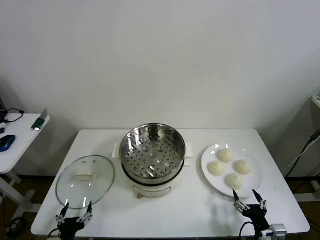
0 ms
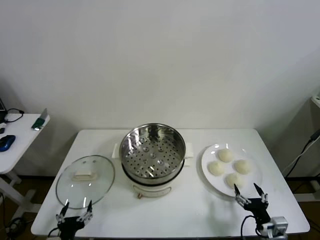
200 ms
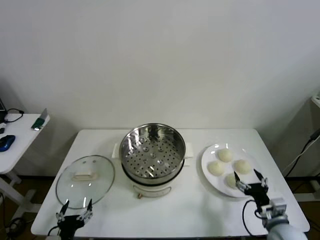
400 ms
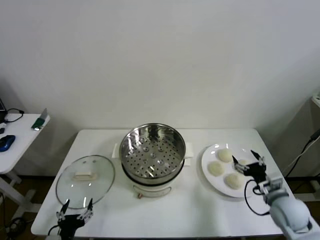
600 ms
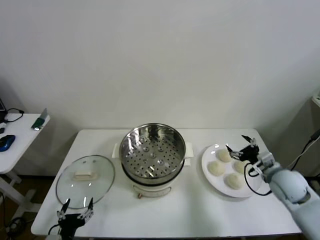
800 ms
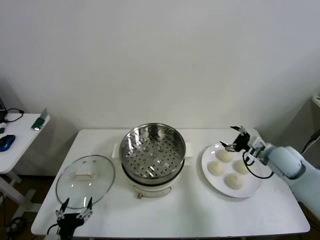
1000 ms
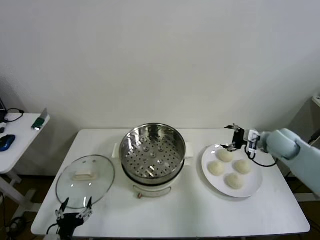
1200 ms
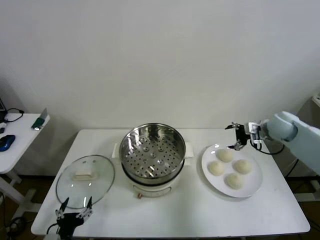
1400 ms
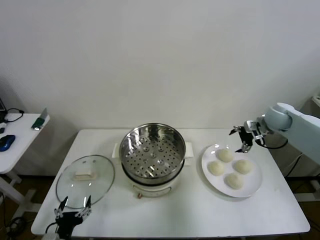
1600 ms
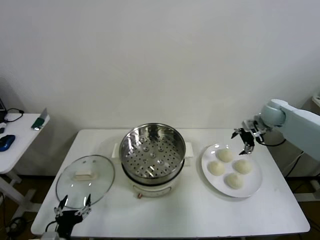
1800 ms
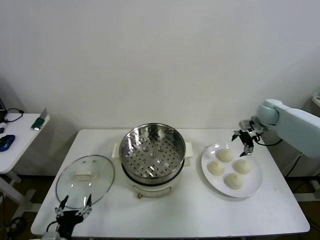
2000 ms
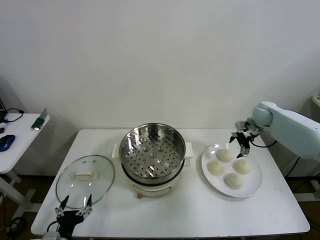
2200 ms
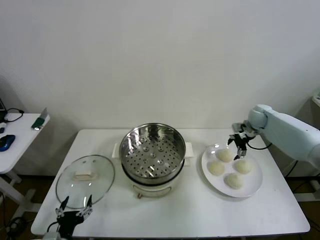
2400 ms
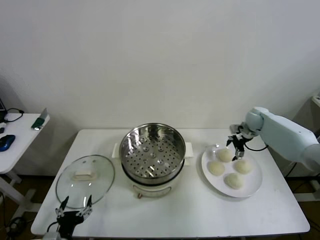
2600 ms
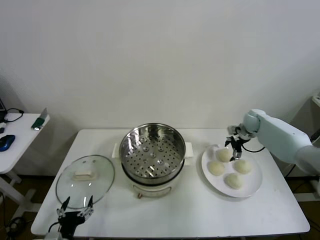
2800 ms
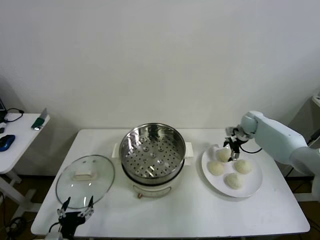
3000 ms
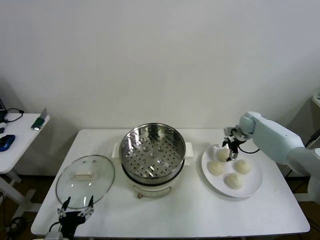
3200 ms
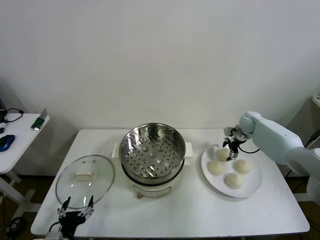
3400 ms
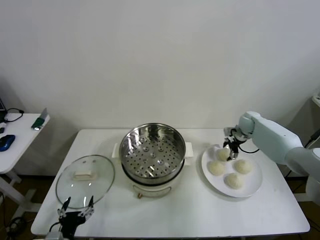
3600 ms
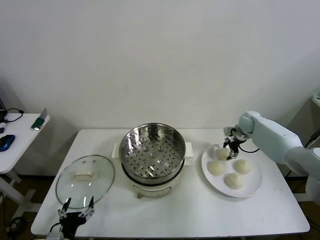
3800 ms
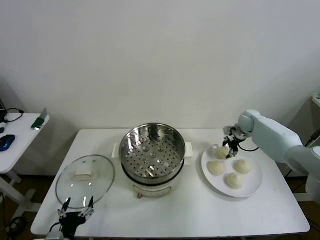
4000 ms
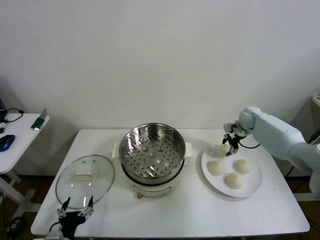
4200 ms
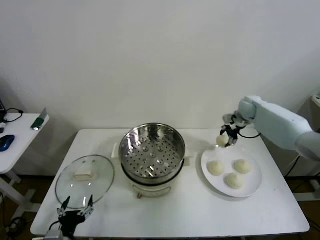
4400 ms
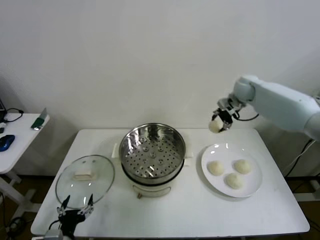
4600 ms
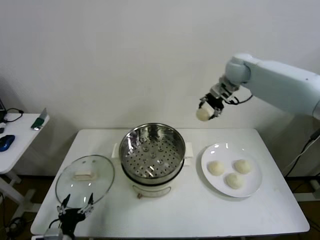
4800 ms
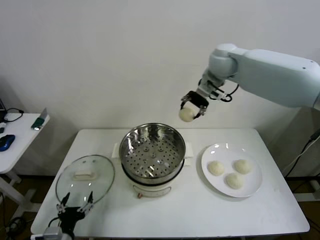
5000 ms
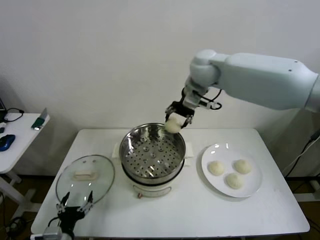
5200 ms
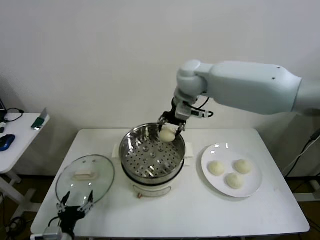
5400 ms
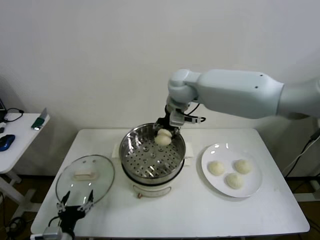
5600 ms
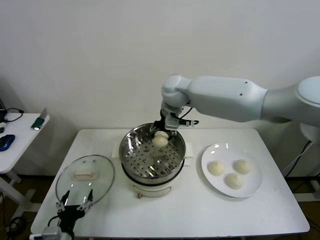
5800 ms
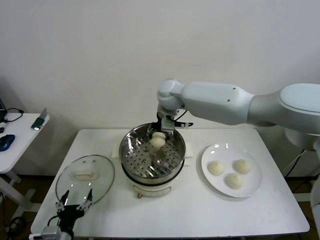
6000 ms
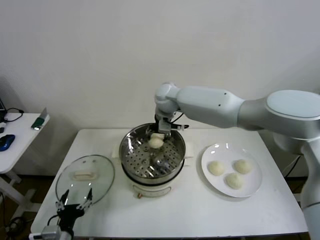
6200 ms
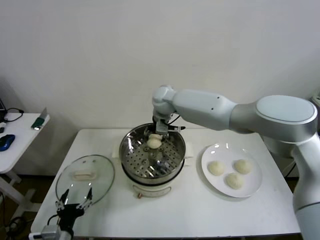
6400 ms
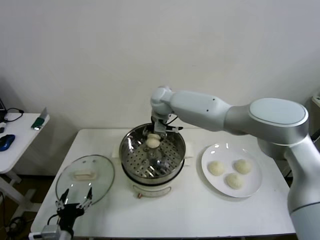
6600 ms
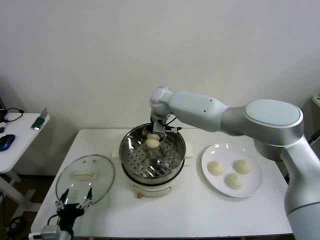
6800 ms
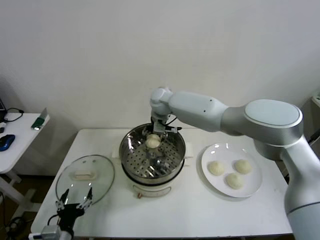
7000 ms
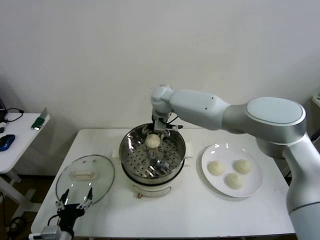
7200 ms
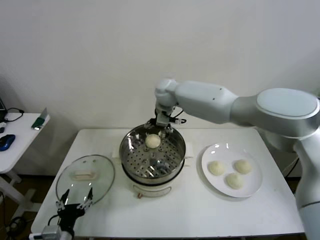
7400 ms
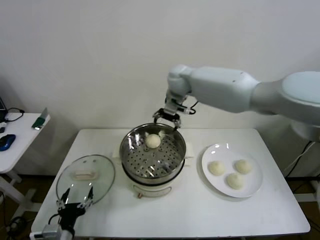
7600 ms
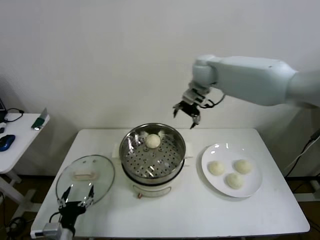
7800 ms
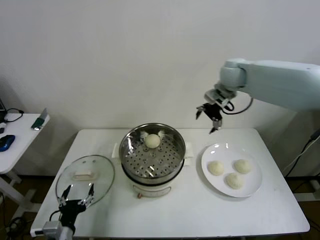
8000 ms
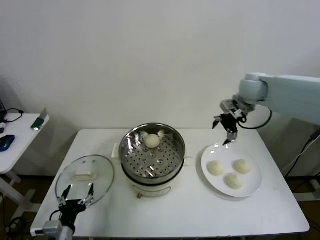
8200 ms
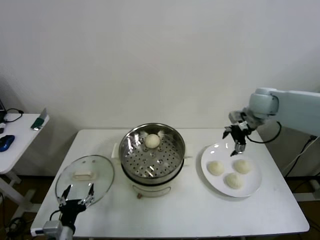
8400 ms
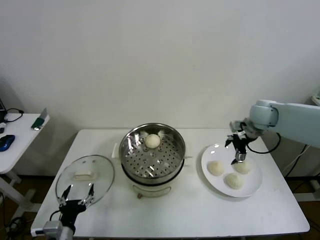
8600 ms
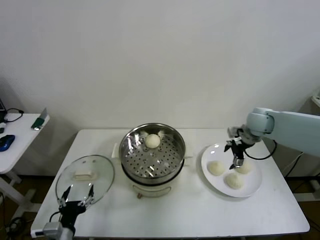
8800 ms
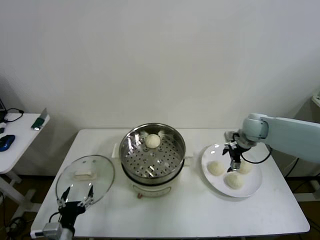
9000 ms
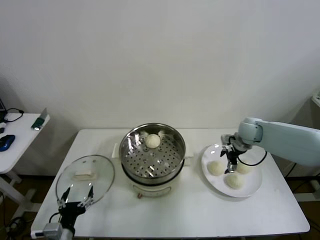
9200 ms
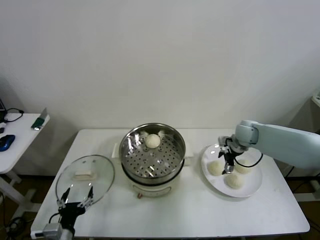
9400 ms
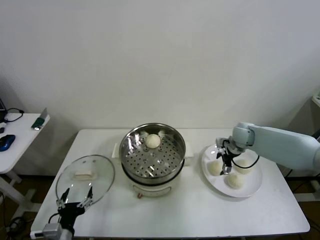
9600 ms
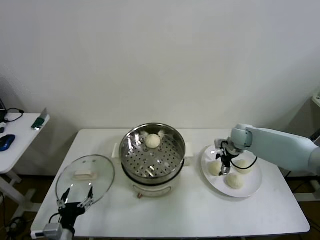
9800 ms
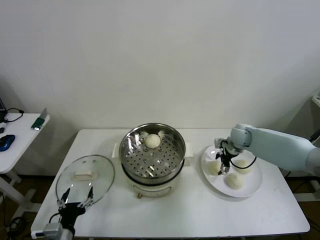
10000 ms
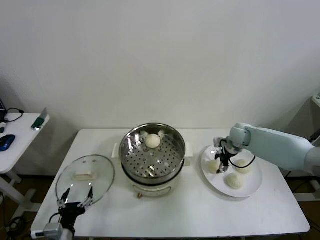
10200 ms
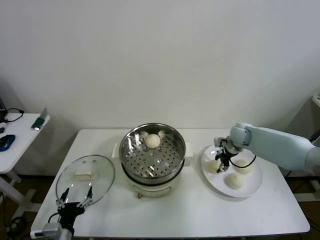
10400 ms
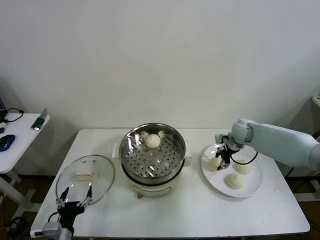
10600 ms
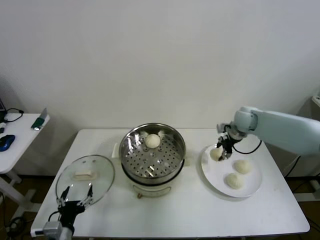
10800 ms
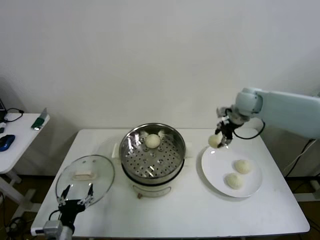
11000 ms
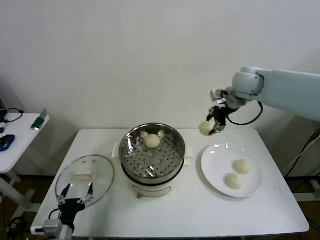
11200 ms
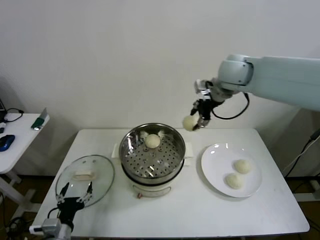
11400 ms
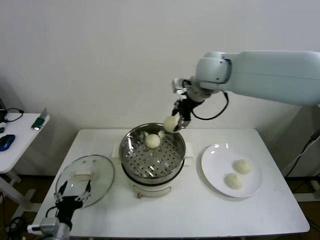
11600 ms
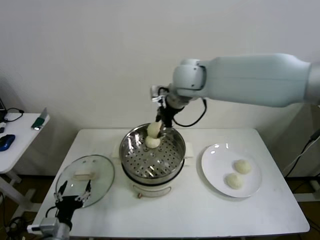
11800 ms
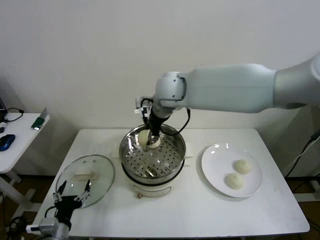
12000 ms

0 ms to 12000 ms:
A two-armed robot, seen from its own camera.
Step, 0 ms to 3800 ms: Grasp the baozi in the plate with right gripper.
Step, 4000 ms to 7200 ms: Place the baozi on the steamer with right gripper.
Step, 7600 ms to 10200 ms: Grasp the baozi in the plate with right gripper.
1600 ms to 3000 ms: The right gripper goes roughly 10 cm downward and forward.
3000 ms to 4400 ms: The right gripper heads upward, covering roughly 15 cm, and closes up.
4400 ms to 6000 ms: The right gripper shifts approximately 30 cm to the left.
6000 ms to 7600 ms: The right gripper travels to the right and upward by about 10 cm, and opens.
7600 ms to 9000 ms: The right gripper travels to the right and downward by approximately 30 cm.
9000 ms to 10400 ms: The right gripper heads downward, covering approximately 5 cm, and closes its fingers.
10400 ms to 12000 ms: The right gripper is displaced to the left and upward by approximately 40 cm.

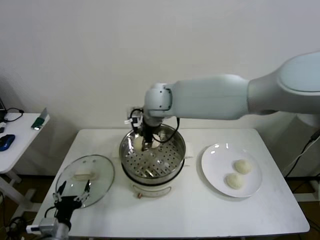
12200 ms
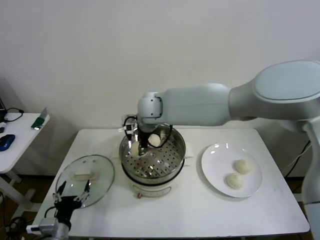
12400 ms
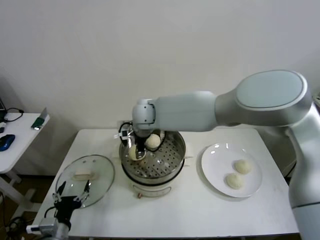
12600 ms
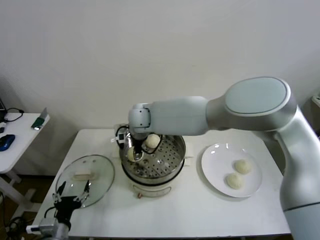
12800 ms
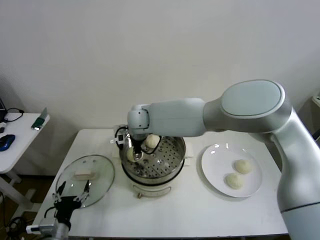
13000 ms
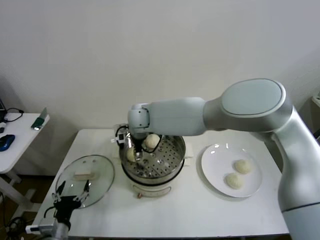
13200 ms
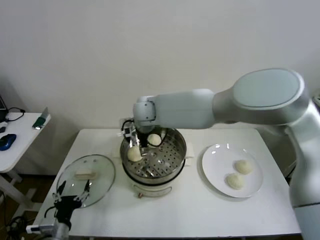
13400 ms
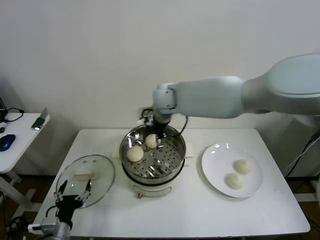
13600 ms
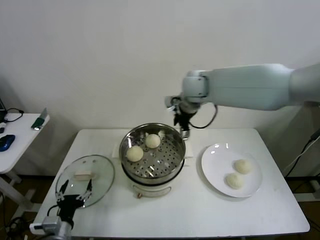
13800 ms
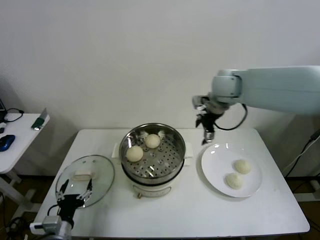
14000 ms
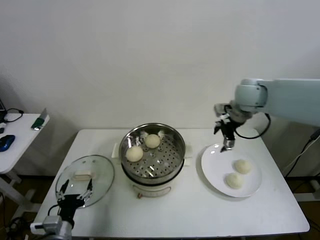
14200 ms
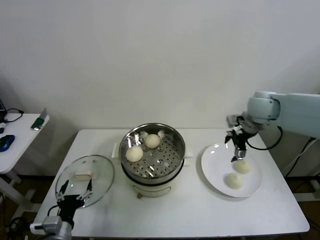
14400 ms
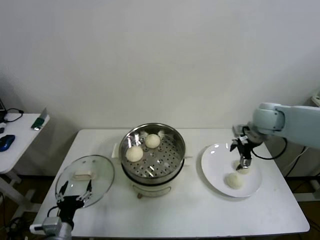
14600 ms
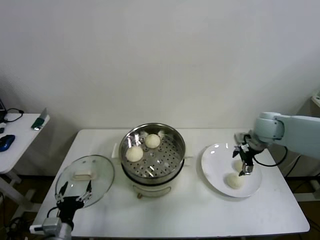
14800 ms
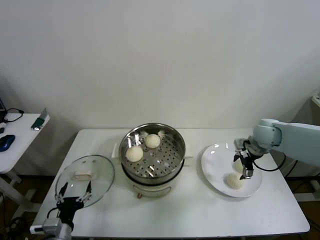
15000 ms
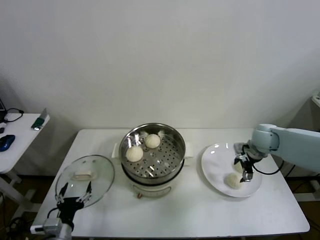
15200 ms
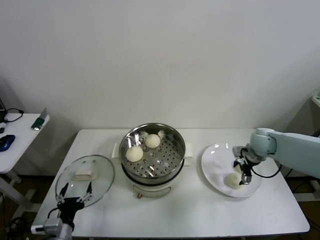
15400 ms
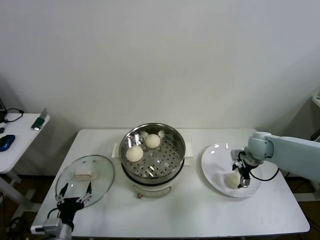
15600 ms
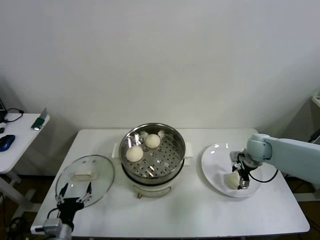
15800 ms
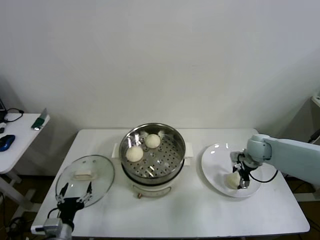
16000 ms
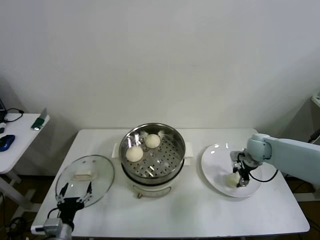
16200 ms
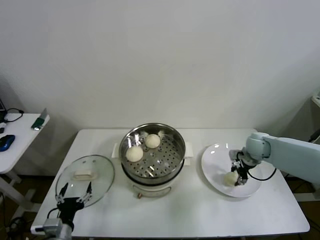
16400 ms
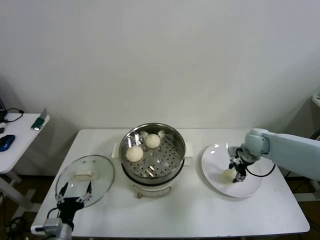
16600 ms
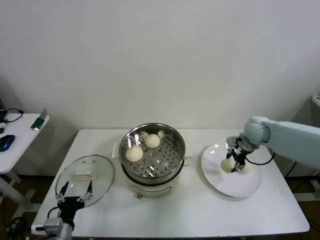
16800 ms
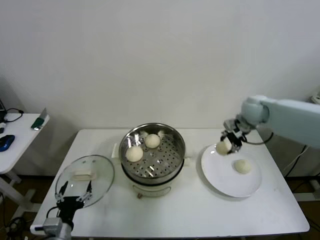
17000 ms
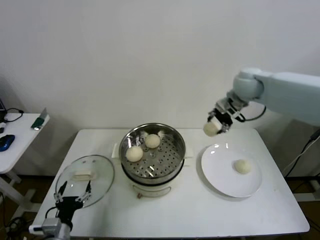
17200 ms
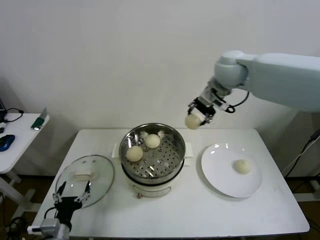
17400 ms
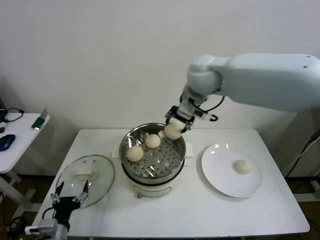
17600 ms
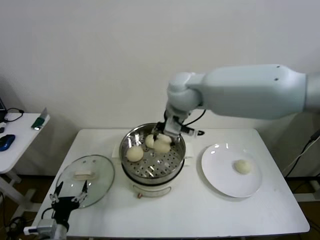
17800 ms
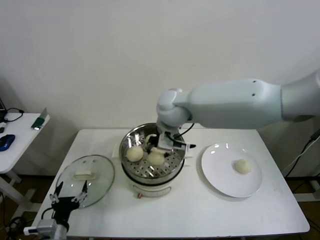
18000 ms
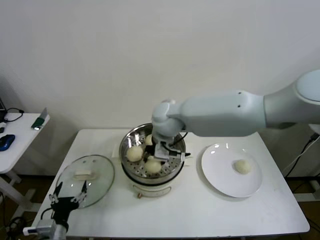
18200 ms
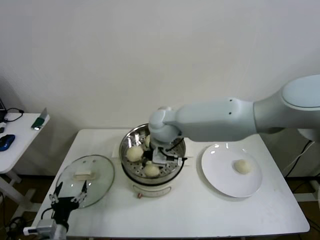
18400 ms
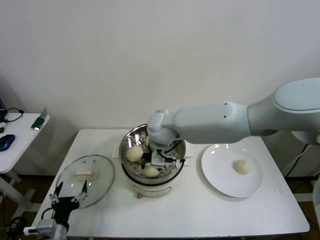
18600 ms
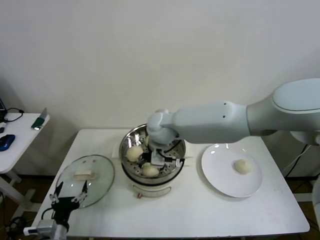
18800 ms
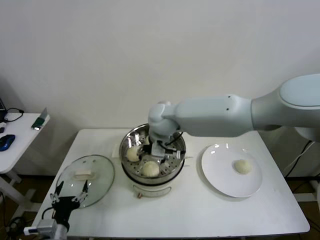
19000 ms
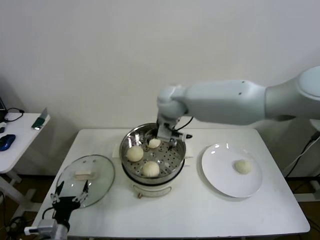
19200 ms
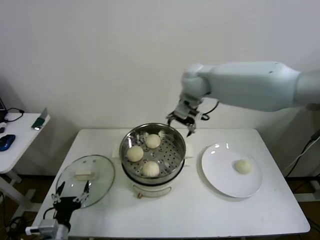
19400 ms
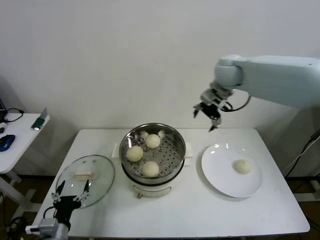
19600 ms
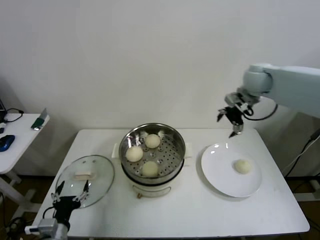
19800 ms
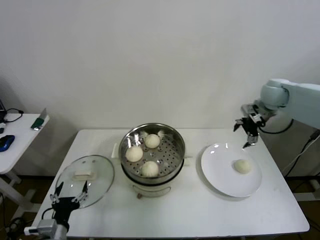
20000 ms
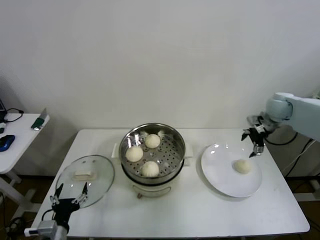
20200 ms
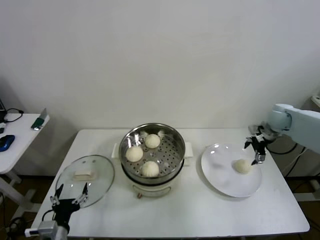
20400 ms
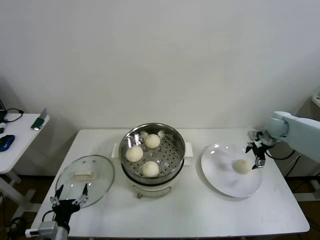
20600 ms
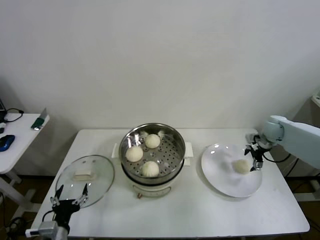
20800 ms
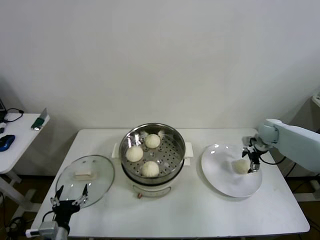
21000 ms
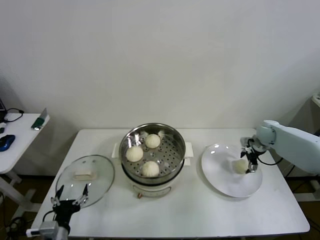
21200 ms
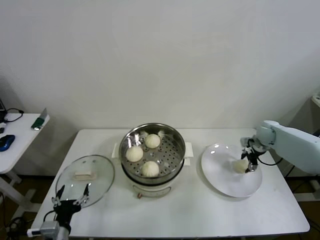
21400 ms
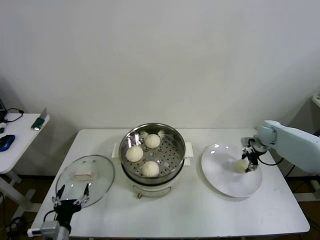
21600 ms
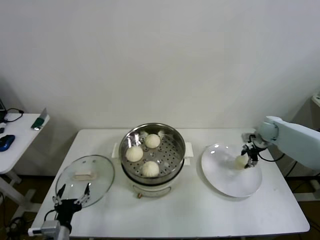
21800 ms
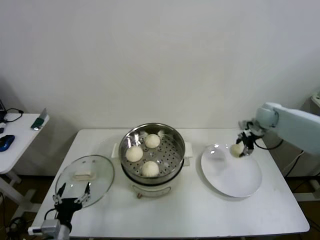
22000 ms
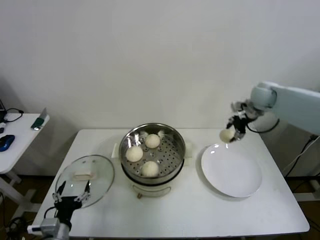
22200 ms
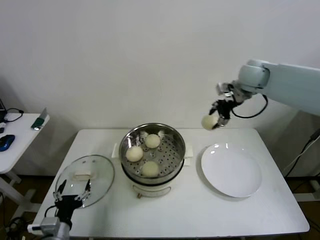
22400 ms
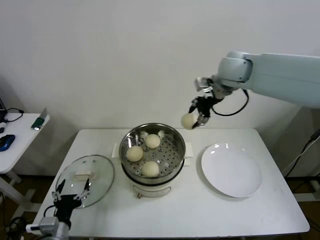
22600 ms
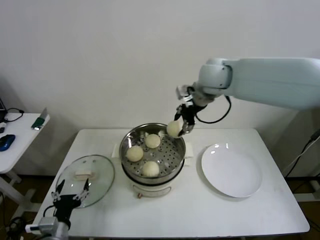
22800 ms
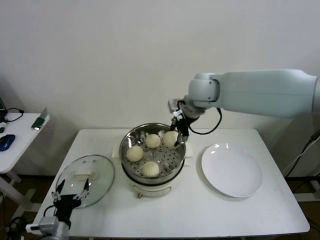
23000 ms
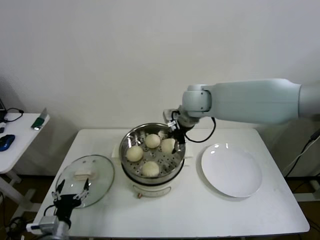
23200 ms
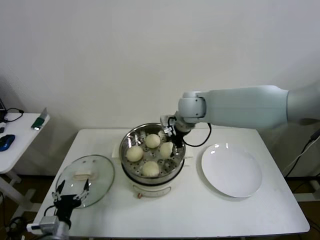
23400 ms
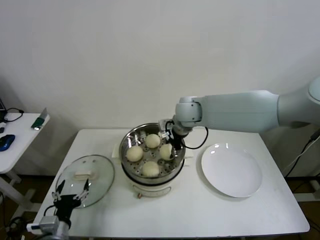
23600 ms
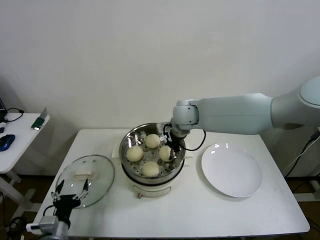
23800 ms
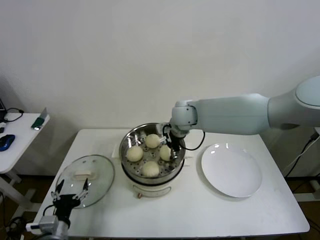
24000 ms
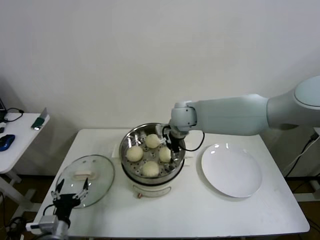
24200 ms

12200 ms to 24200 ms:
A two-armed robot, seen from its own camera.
Step, 13400 ms to 16200 ms: Grasp the baozi in the plate with right gripper.
Step, 16400 ms to 18800 ms: Place the baozi on the steamer with right gripper.
Step, 19200 ms to 21400 ms: Grasp the baozi in the plate with right gripper.
12200 ms to 13800 ms: The right gripper heads to the right, covering about 15 cm, and opens its fingers.
13800 ms to 15200 ms: The right gripper shifts approximately 30 cm to the right and downward.
15200 ms to 16600 ms: The right gripper closes its fingers.
16600 ms to 18200 ms: The right gripper goes about 35 cm to the left and upward.
18200 ms to 19800 ms: The right gripper goes some 30 cm to the right, and opens.
19800 ms to 21200 ms: The right gripper goes roughly 25 cm downward and to the right.
21200 ms to 22600 ms: The right gripper travels upward and to the left by about 35 cm, and closes.
22600 ms to 24200 ms: The right gripper shifts approximately 20 cm downward and to the left, and opens up.
